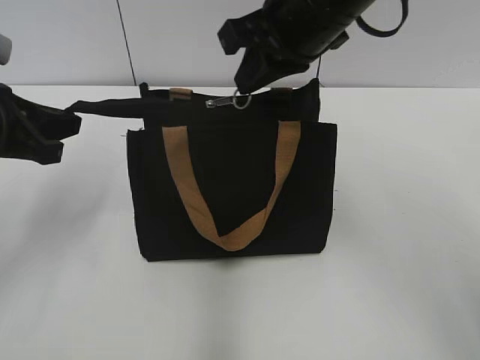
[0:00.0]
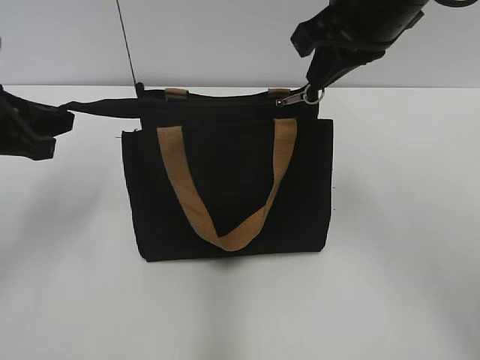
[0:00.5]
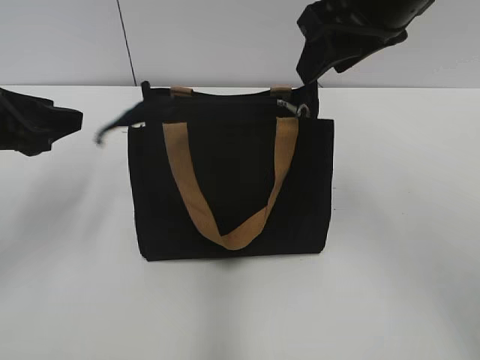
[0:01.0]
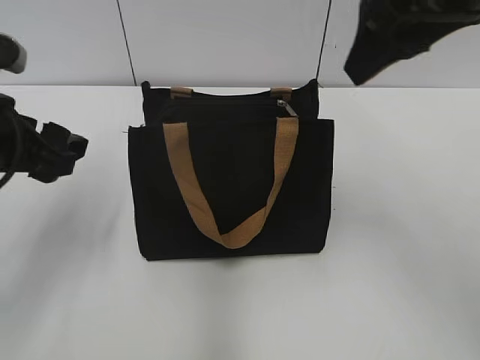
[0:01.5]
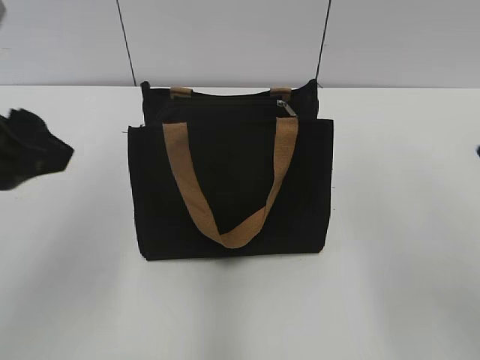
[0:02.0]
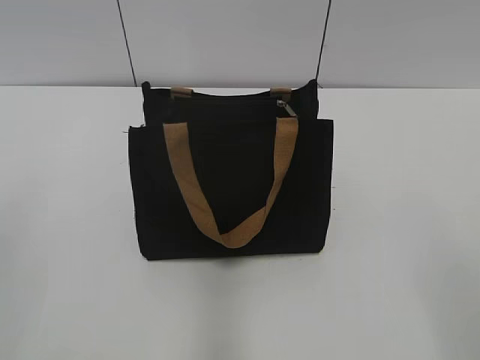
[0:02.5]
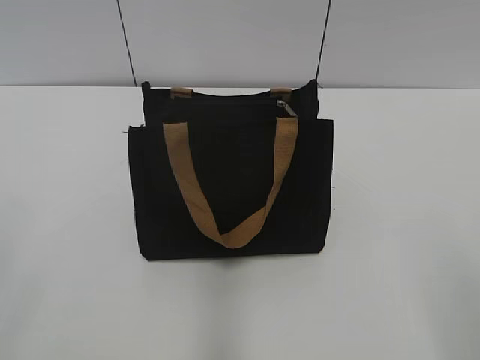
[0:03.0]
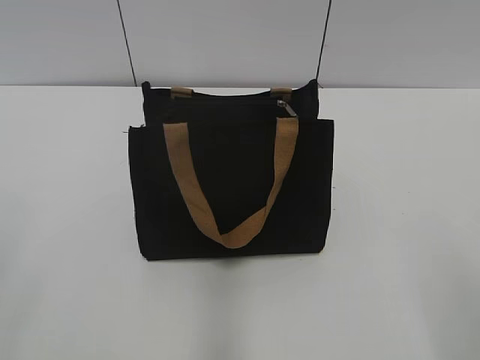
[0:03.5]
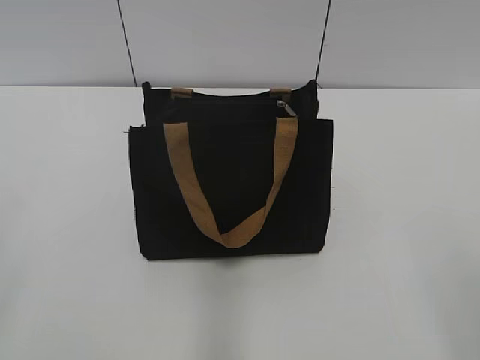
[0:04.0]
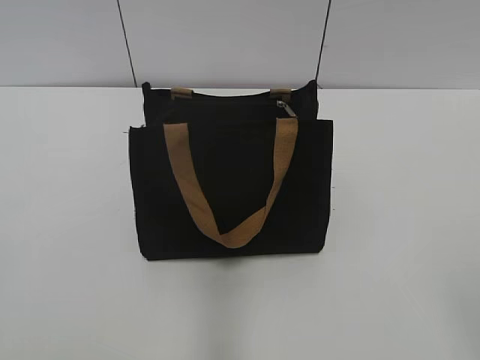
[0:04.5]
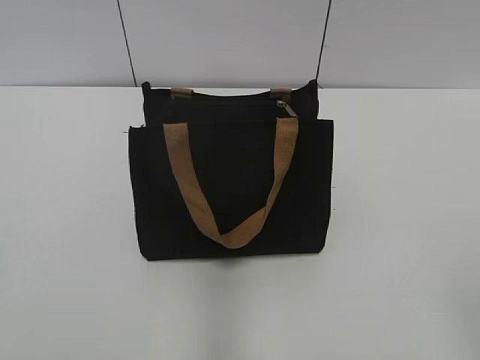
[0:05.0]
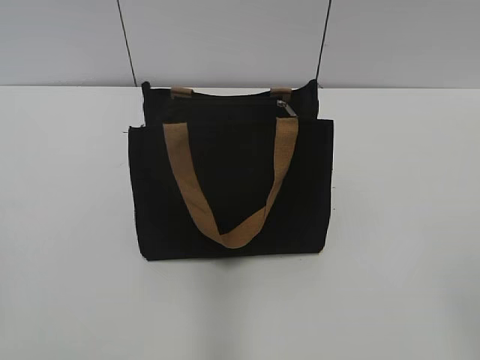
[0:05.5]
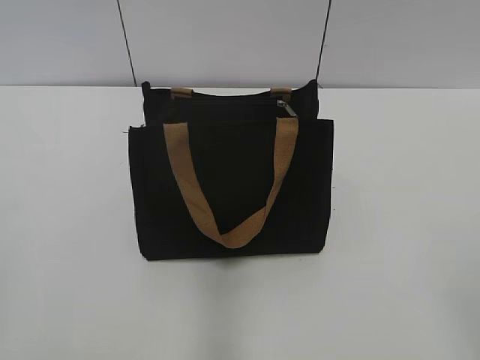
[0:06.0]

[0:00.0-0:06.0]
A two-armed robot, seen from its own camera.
0:00.0 to 0:02.0: The left gripper shifts roughly 10 cm backward, upward and to the right, and opens up. The right gripper shifts approximately 20 cm backward and to the right, and opens up.
0:02.0 to 0:04.0: The left gripper travels backward and to the left by approximately 20 cm.
